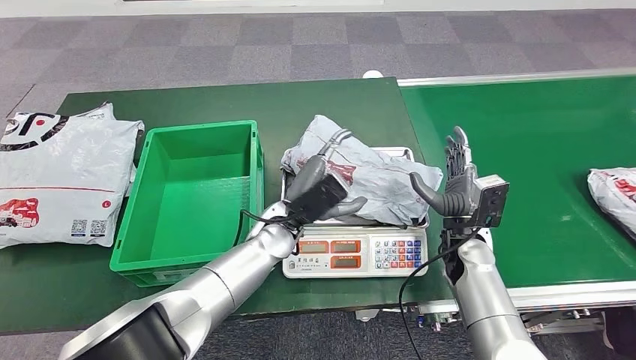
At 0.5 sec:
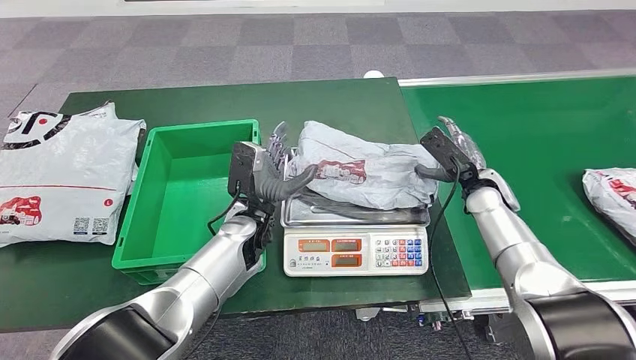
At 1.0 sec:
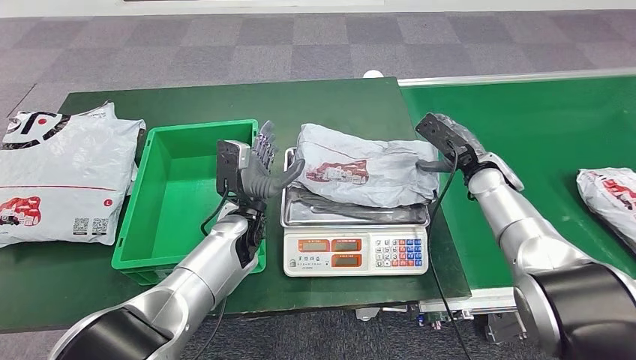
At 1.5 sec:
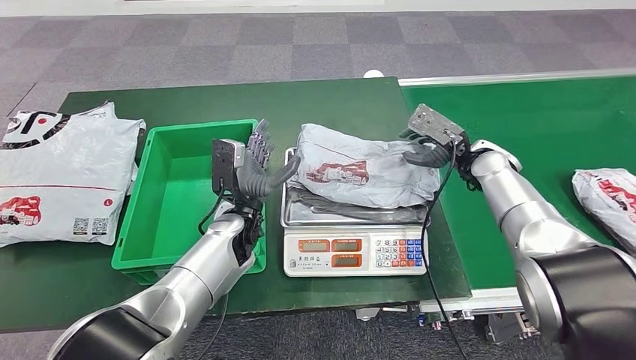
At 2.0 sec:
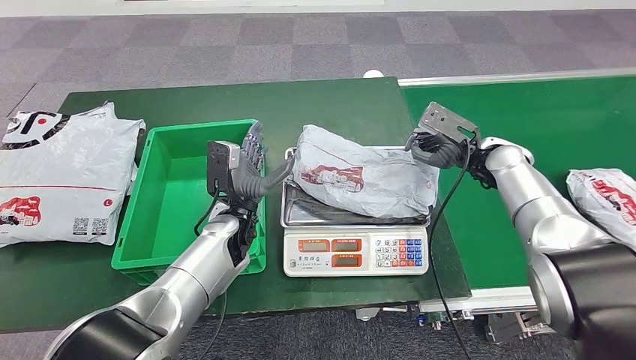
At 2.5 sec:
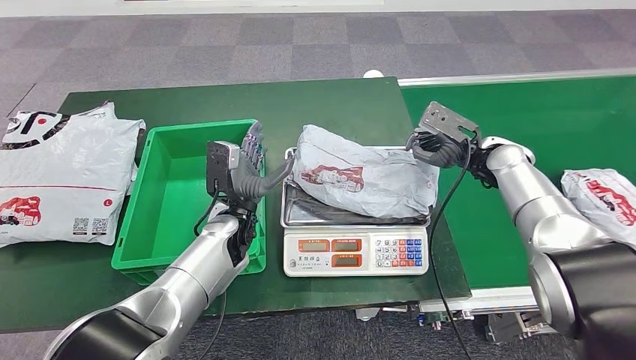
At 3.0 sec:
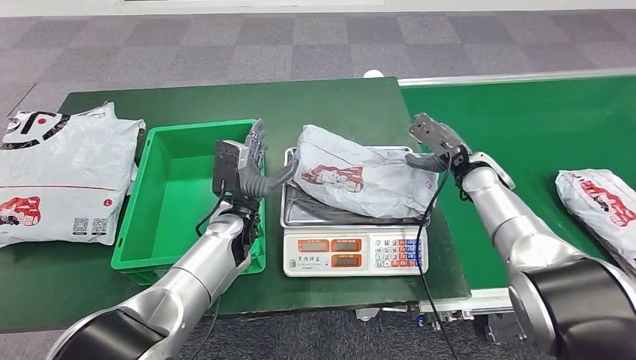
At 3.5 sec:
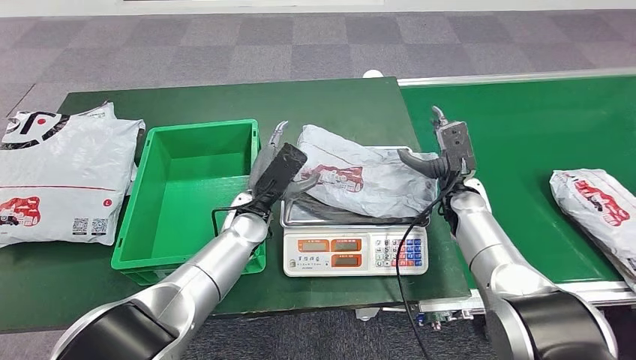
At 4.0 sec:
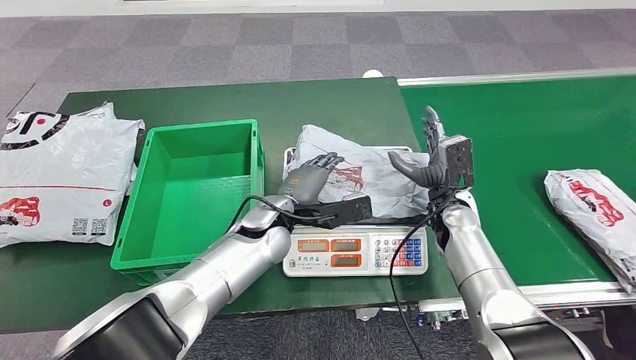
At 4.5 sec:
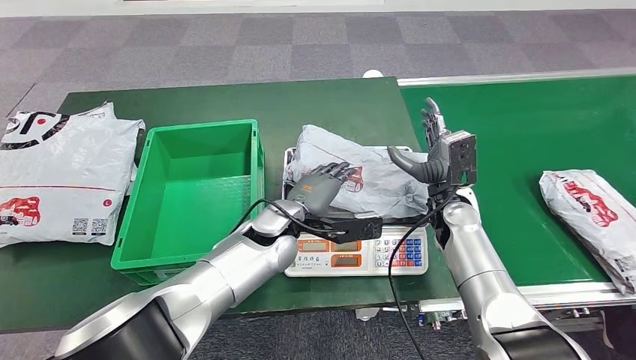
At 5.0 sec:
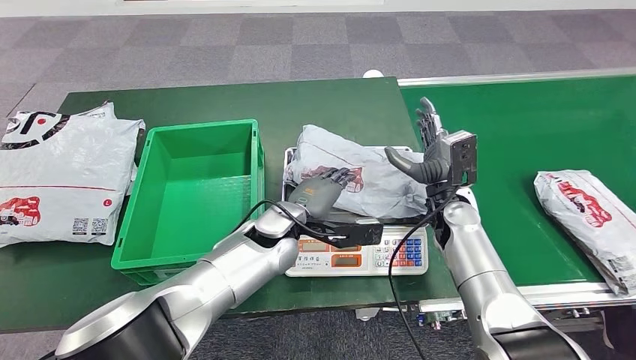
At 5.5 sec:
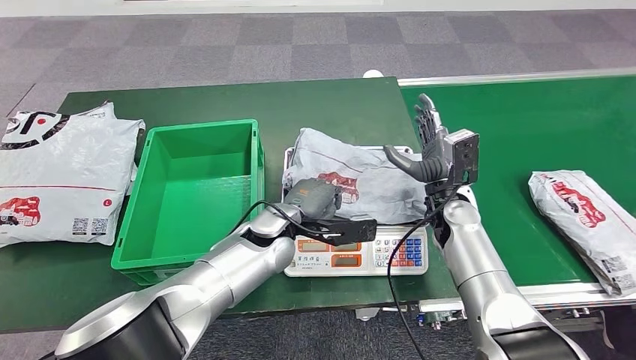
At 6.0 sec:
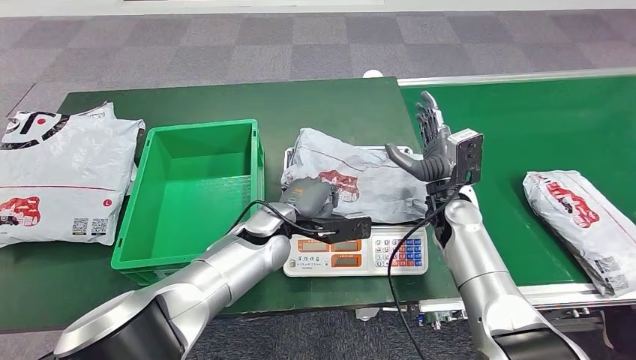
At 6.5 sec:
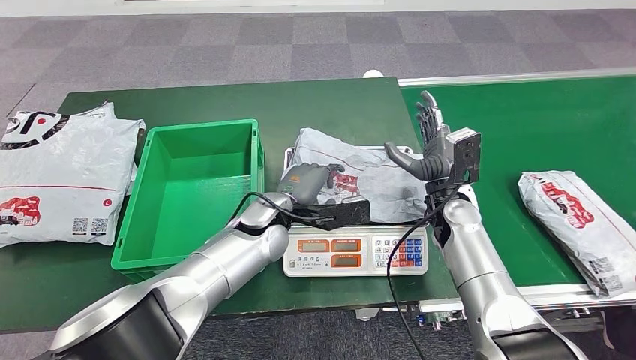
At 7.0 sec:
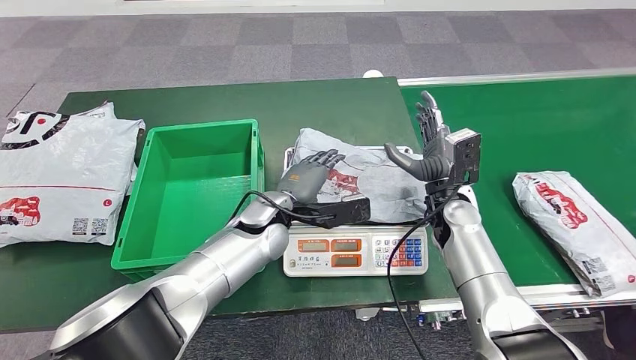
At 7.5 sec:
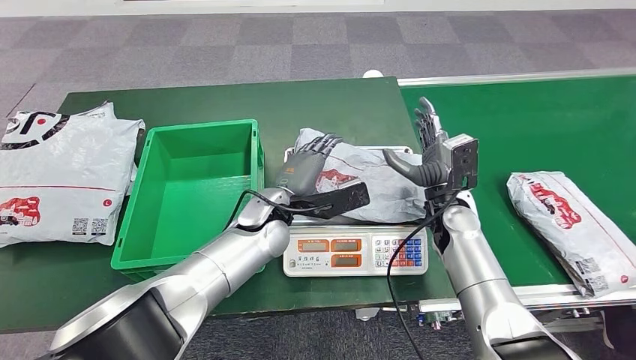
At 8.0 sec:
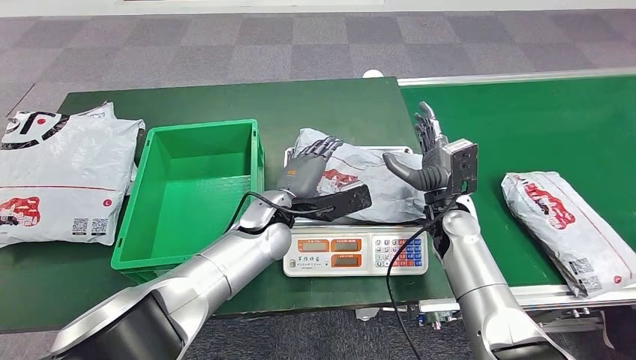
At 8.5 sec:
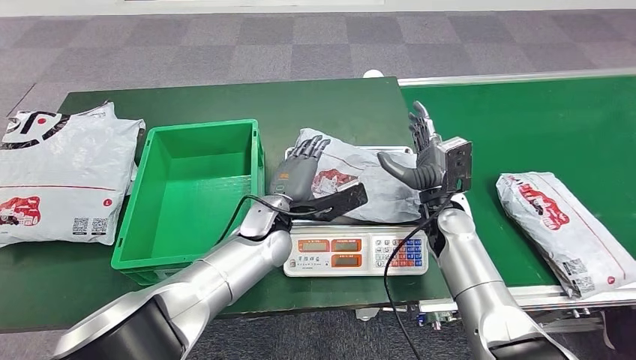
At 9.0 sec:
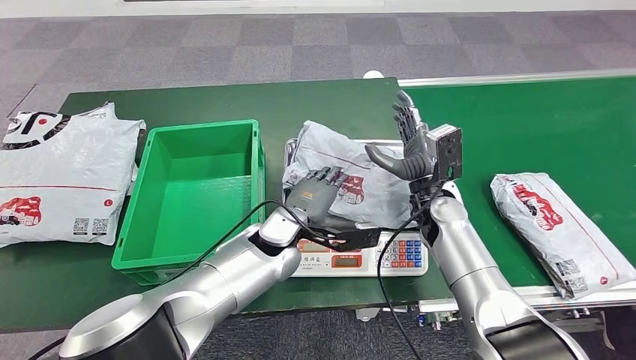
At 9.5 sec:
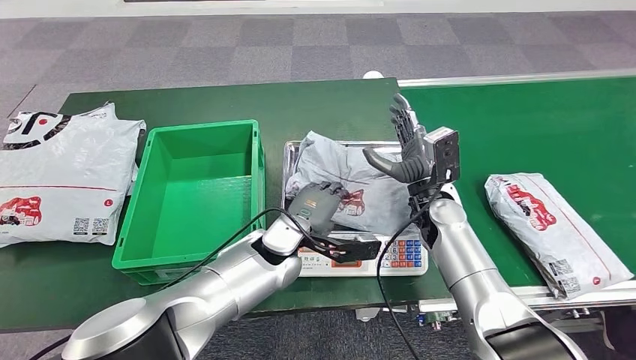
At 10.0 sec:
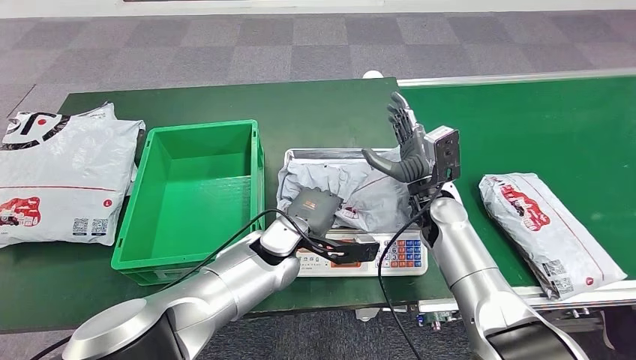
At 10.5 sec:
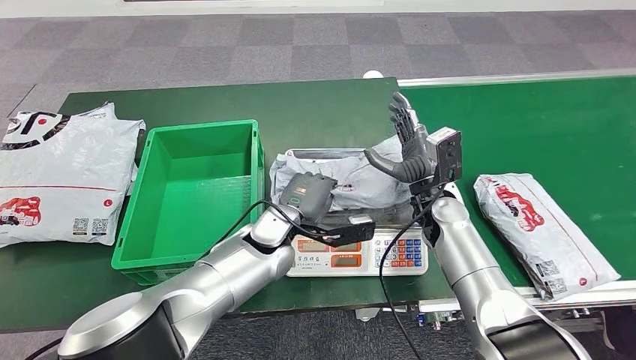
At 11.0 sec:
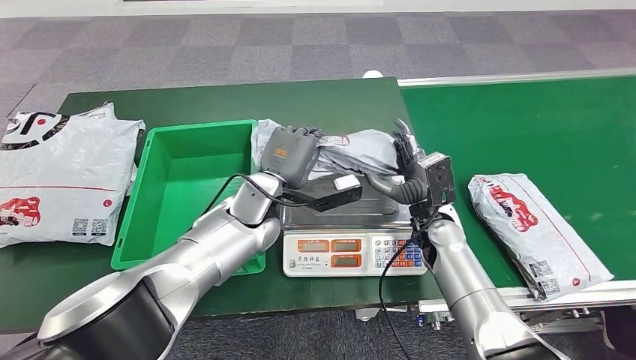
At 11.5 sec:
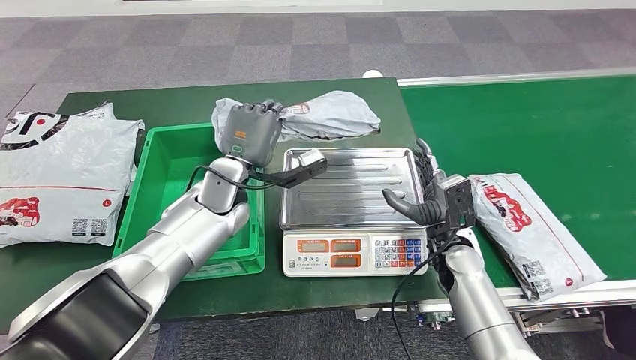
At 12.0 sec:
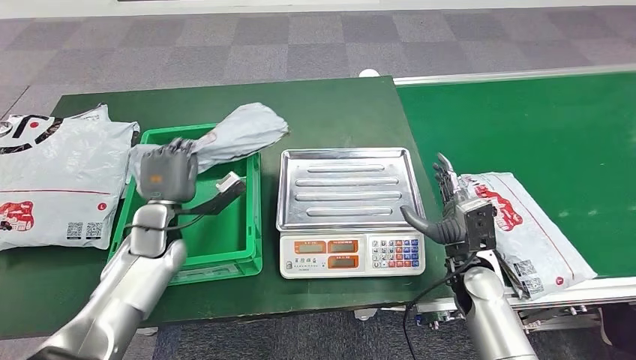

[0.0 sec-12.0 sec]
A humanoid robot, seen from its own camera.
Step, 0.0 sec to 11.5 sec: Pick up the parcel from the inbound machine.
4.0 sec to 8.0 sec: There are only small adjustments of the hands.

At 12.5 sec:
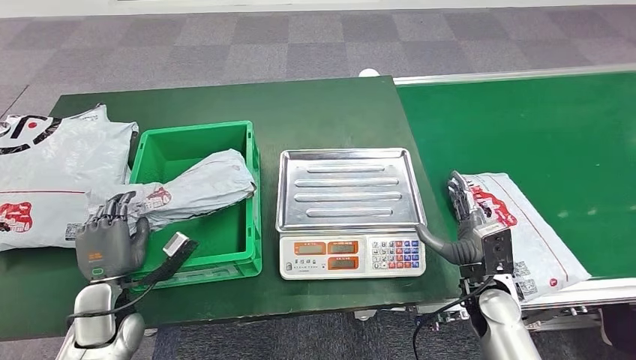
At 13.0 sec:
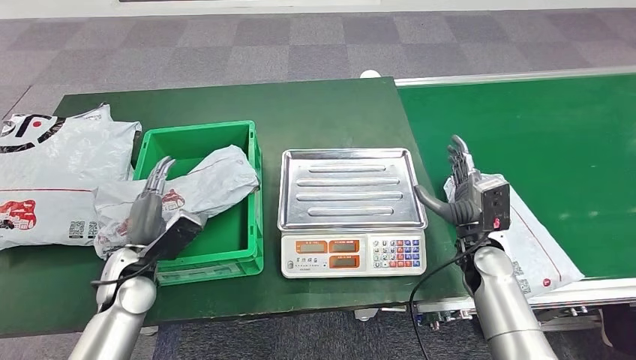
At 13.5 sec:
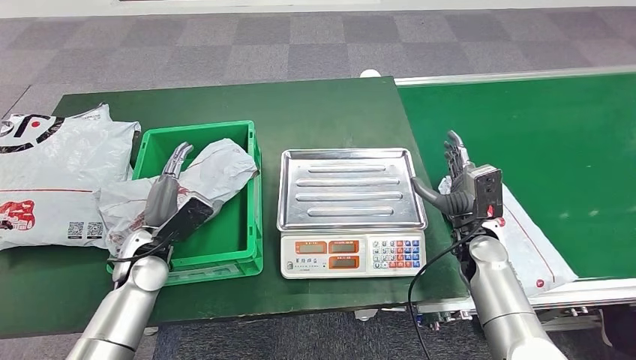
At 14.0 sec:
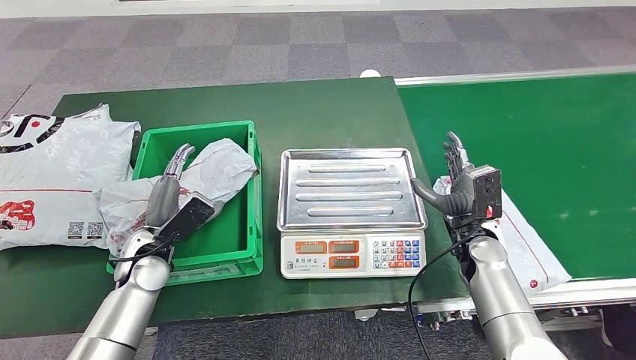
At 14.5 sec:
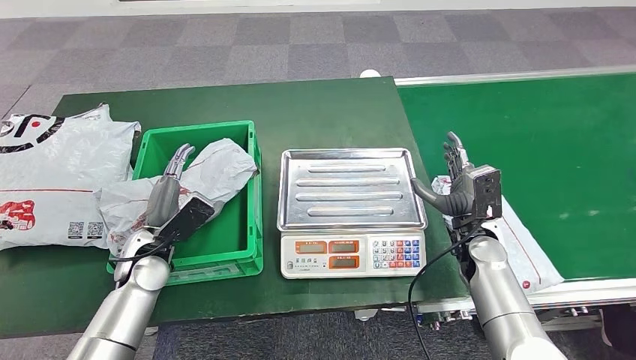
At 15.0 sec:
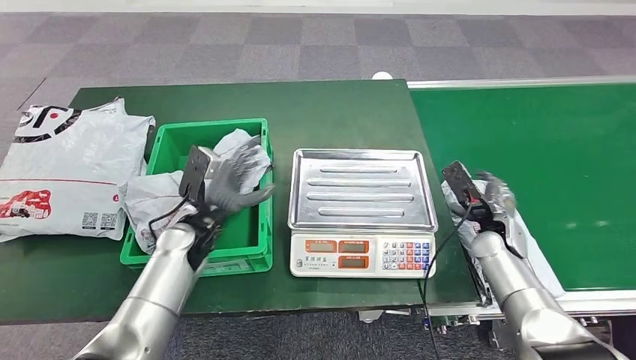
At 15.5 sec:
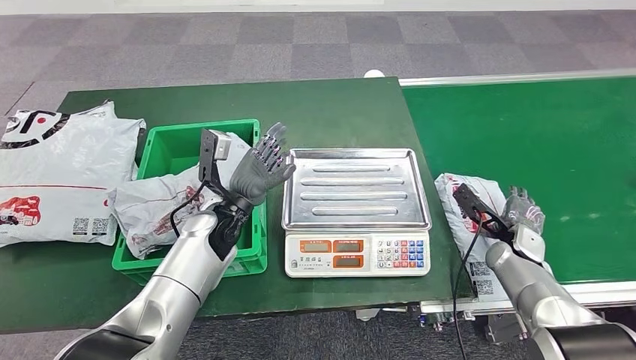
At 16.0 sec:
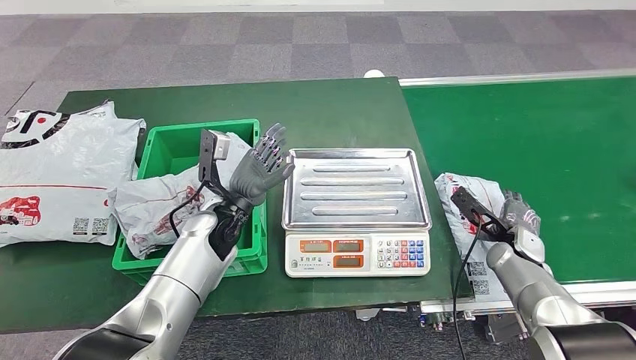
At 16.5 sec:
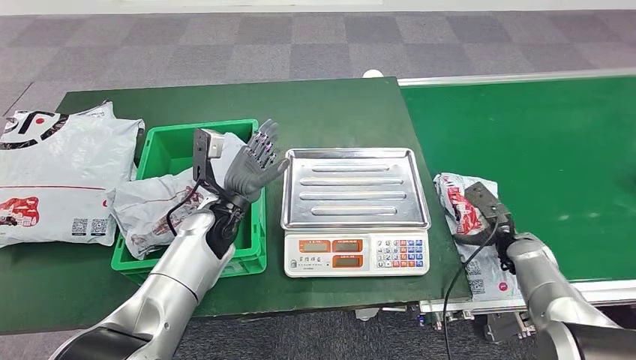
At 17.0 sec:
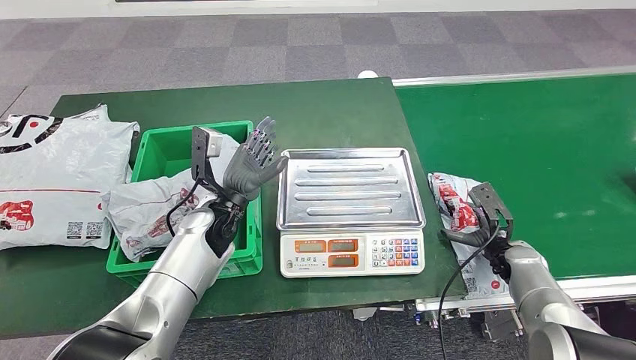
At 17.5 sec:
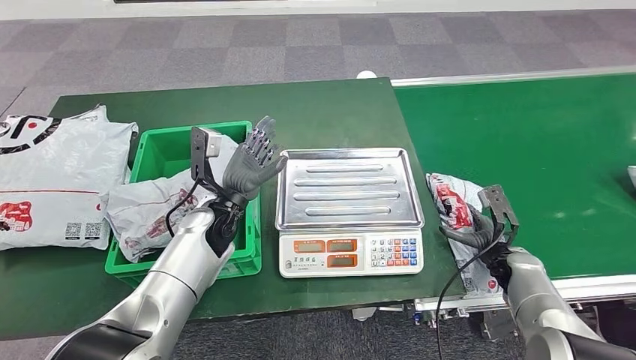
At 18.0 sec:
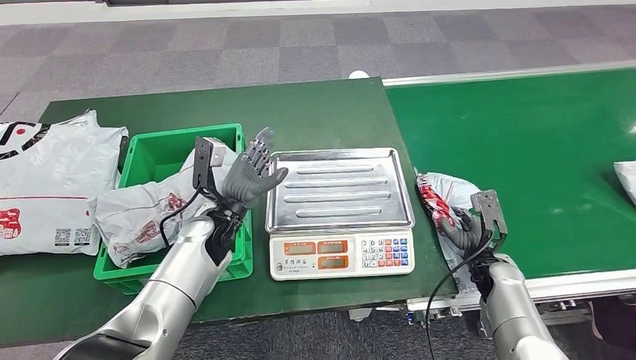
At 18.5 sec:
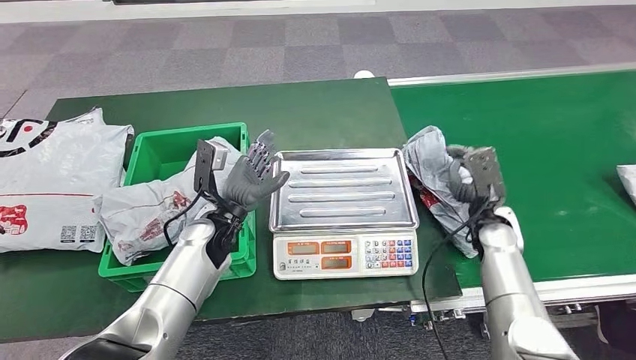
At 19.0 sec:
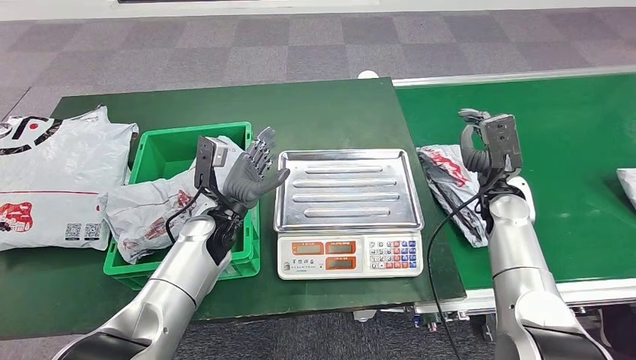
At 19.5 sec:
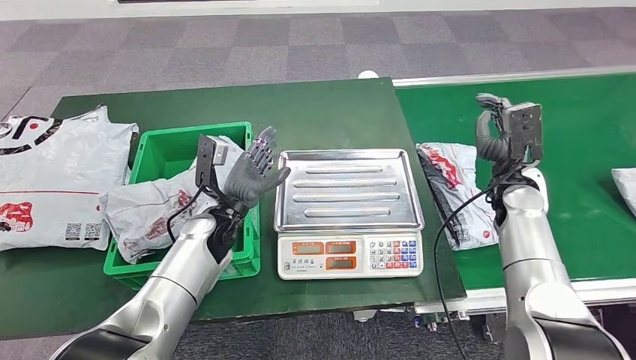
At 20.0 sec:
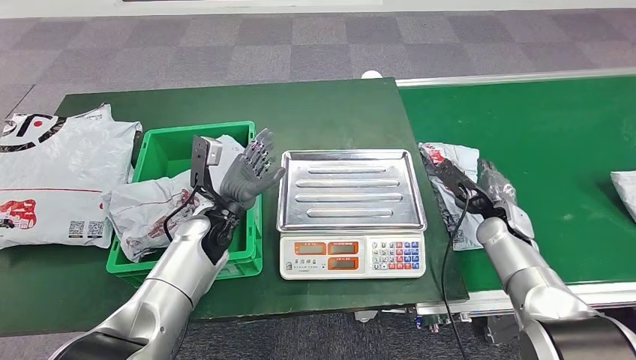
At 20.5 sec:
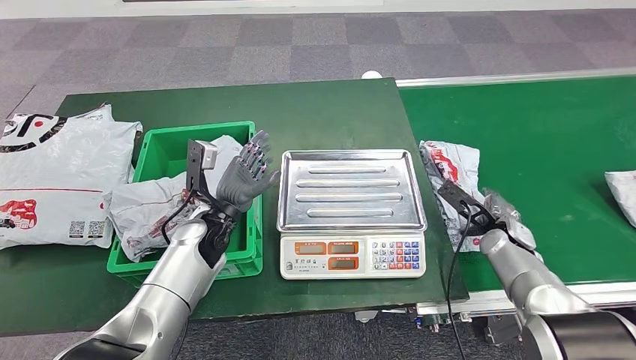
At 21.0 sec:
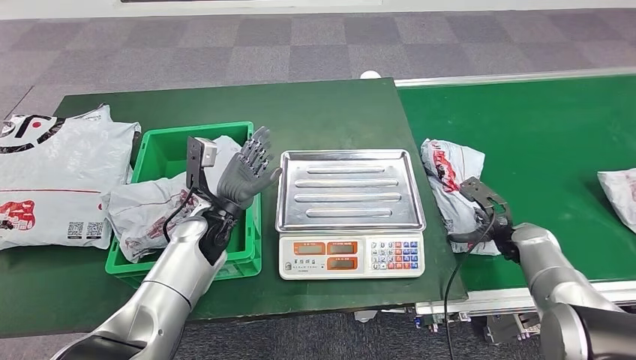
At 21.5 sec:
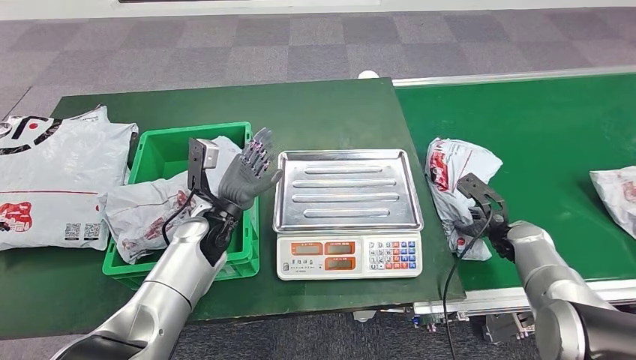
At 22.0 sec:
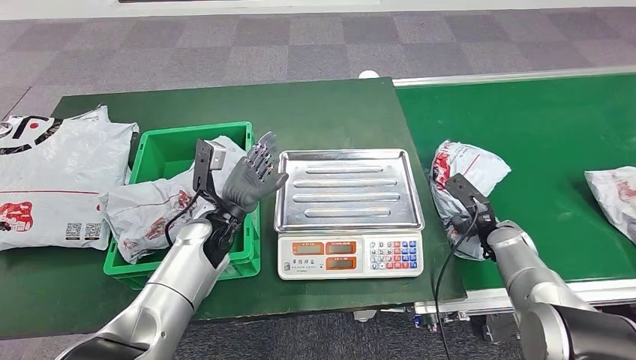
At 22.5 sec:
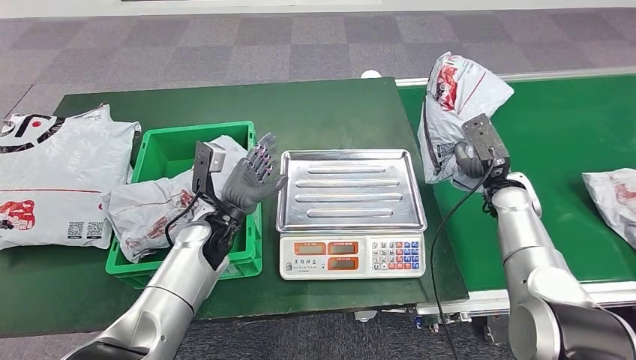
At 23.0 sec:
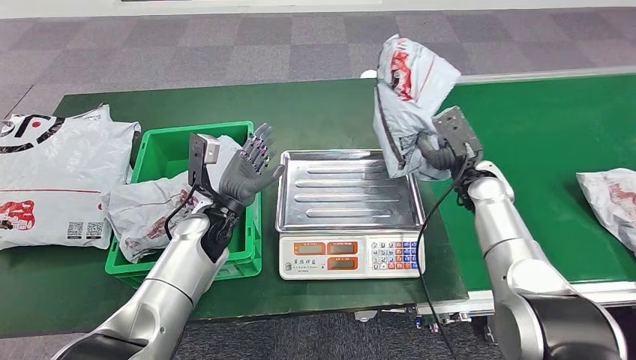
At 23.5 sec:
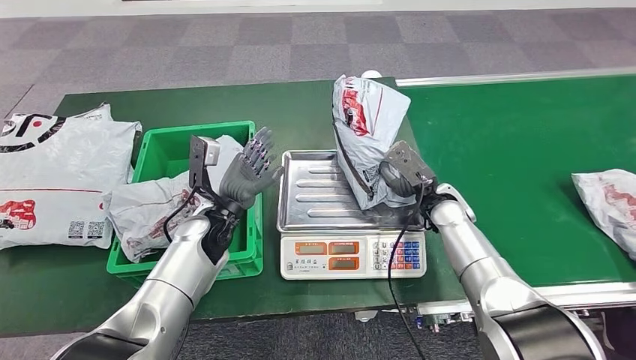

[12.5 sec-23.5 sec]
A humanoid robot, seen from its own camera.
Step, 19.5 sec to 23.0 sec: Pick up the parcel from the conveyor belt.
12.5 sec to 14.5 sec: The left hand is displaced forward and to the right by roughly 10 cm. The right hand moves forward, approximately 10 cm.
20.0 sec to 21.5 sec: The right hand changes place by roughly 5 cm.
